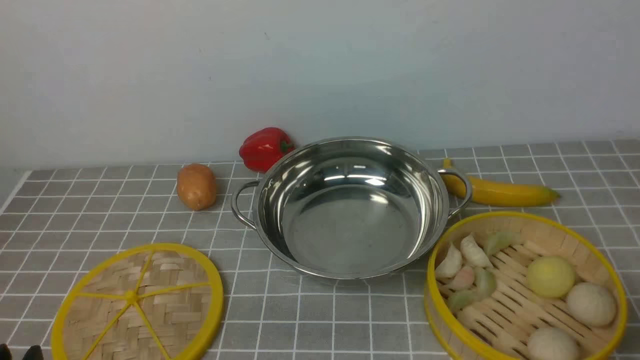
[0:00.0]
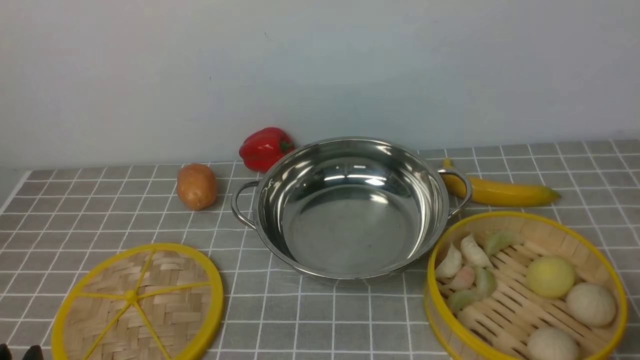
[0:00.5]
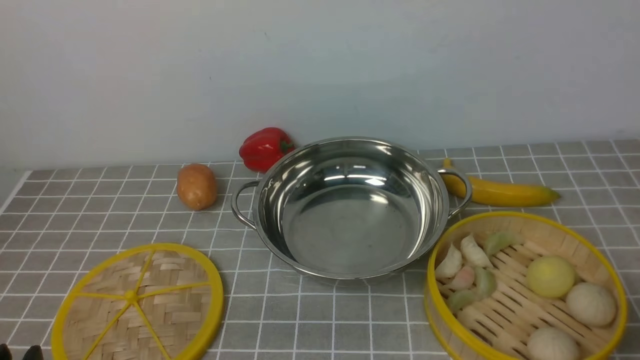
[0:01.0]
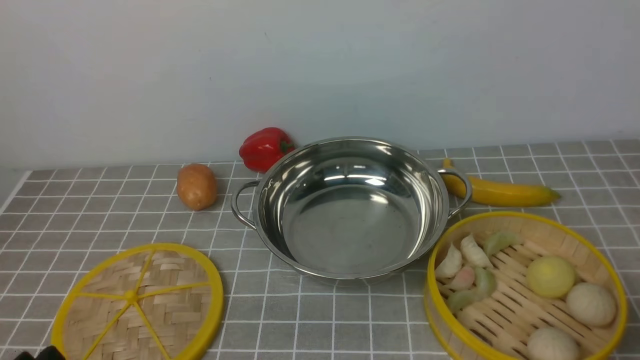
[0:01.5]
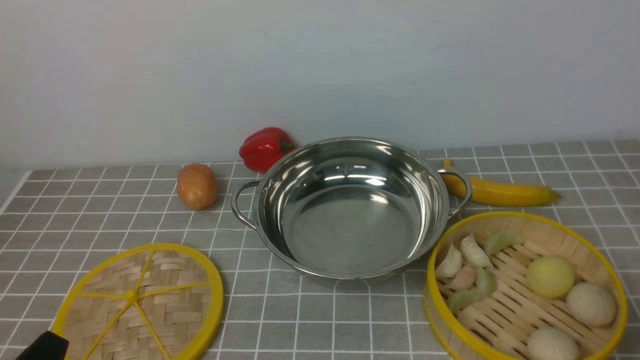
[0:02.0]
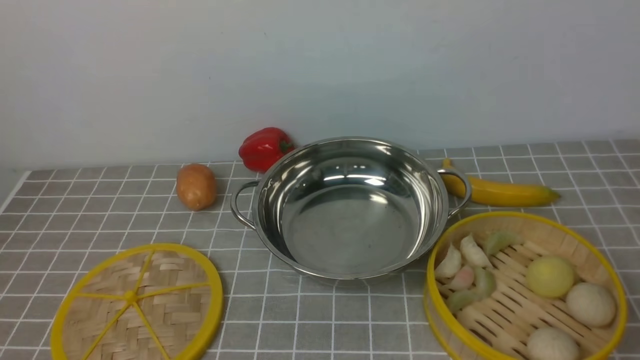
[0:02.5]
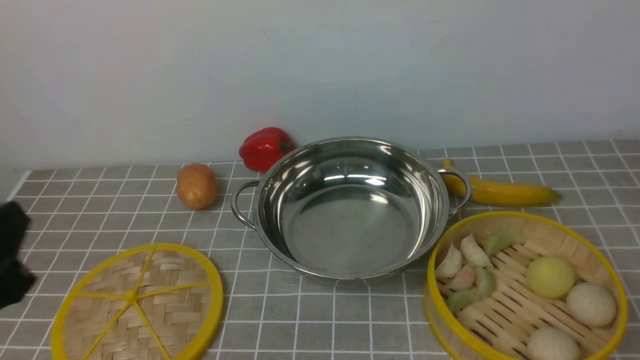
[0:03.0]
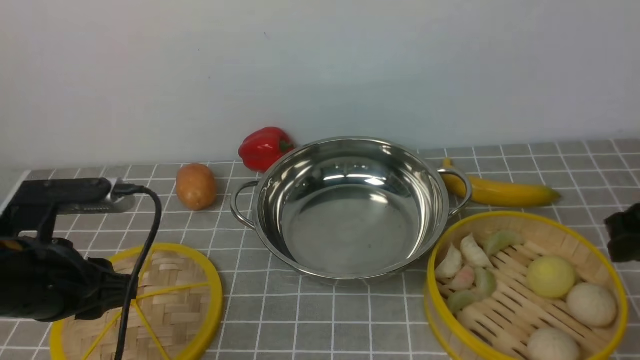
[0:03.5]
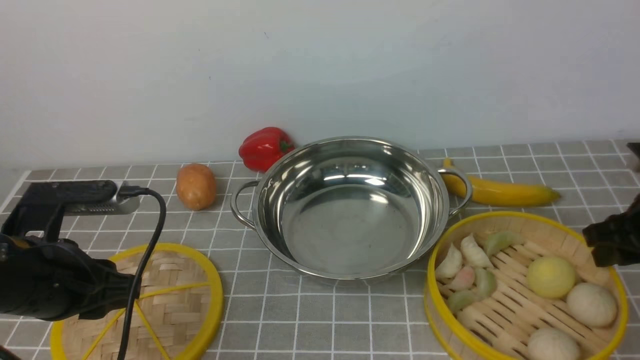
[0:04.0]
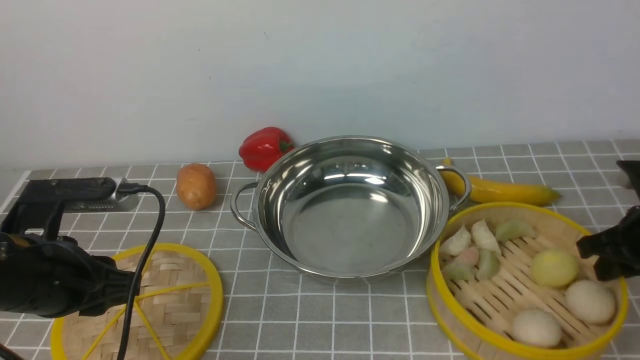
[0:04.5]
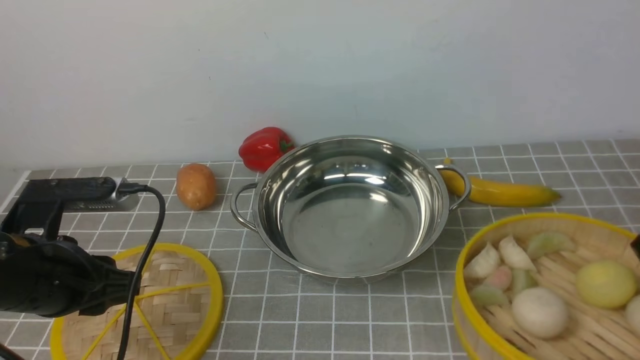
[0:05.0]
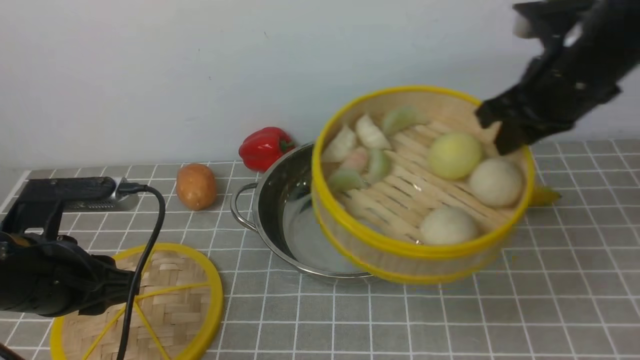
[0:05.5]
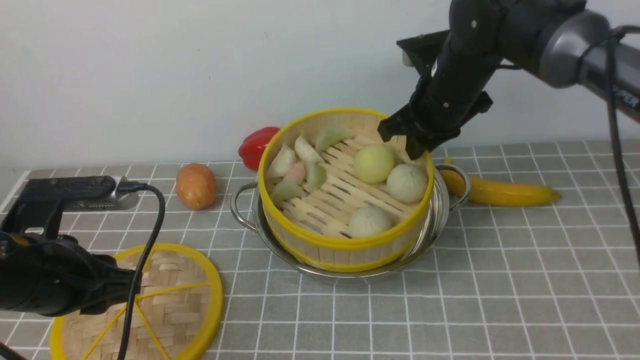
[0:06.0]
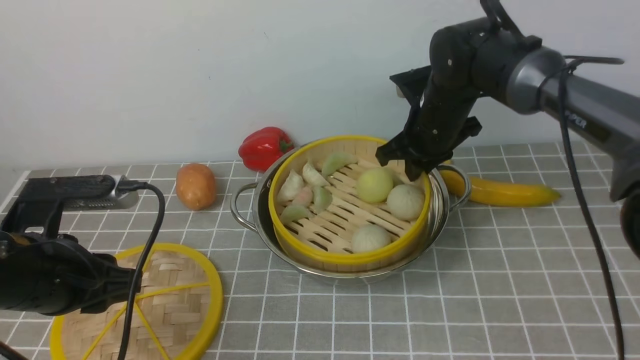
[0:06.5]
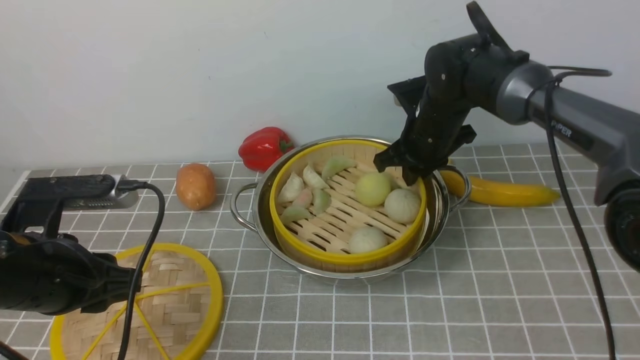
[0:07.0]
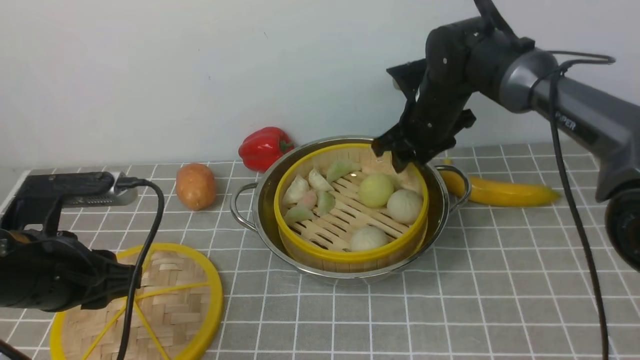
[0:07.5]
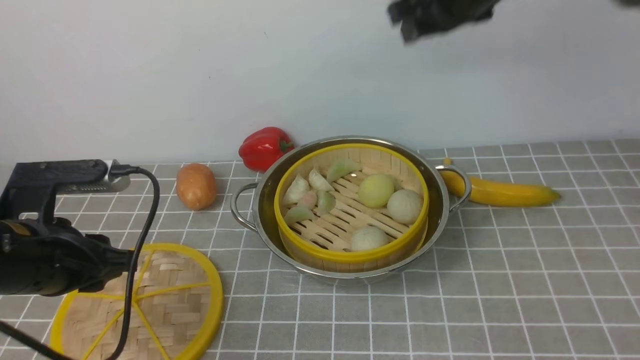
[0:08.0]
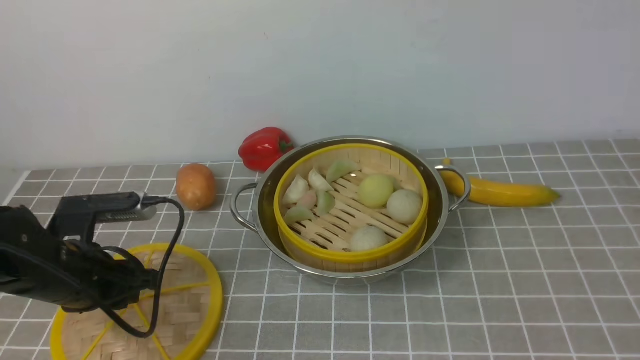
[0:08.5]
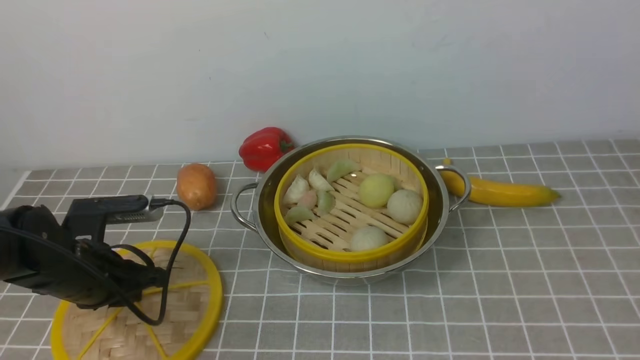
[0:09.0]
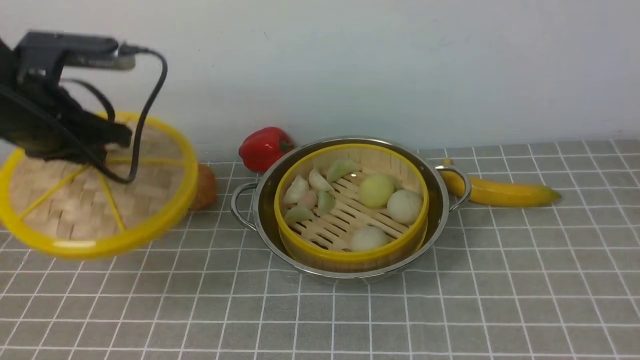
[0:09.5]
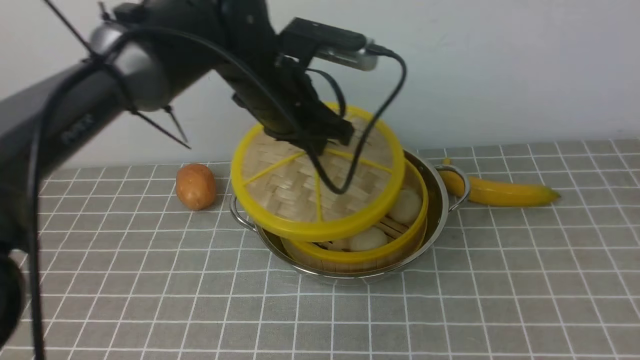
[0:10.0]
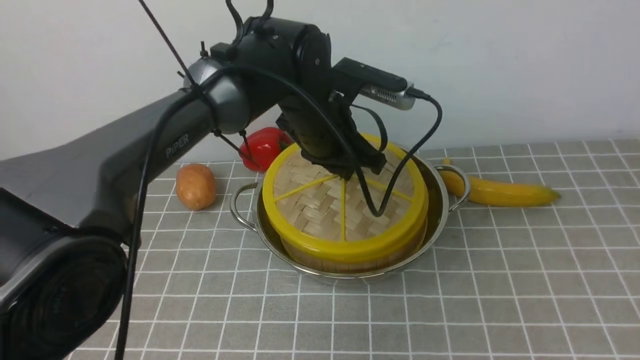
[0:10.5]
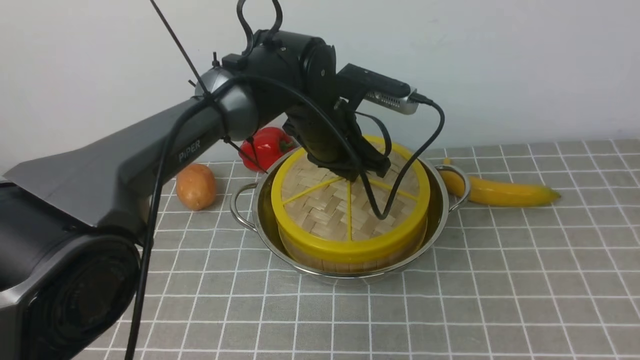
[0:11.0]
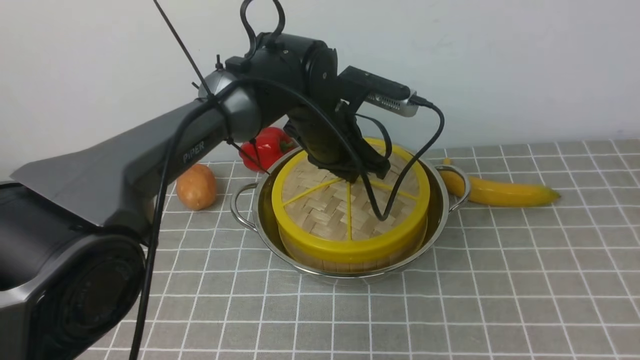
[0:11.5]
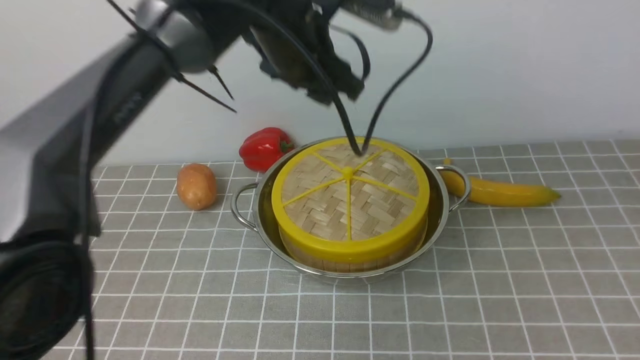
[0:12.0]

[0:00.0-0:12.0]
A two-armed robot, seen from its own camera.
Task of the whole recording: place the steamer in the pot on the grey tablecloth, and put the lid on the steamer.
Step, 0:00.0 to 0:04.5: use the right arm to lift the steamer closest to it.
Step, 0:05.0 to 0:07.5: use the right arm to put the steamer into the iron steamer pot in the middle.
Step, 0:08.0 to 0:09.0: use the left arm to lift the lid of the steamer.
Step, 0:09.5 to 0:11.5: use the left arm to place the steamer lid on the steamer.
0:02.0 to 0:04.0: Both grippers move forward, approximately 20 cm.
0:04.0 to 0:06.0: The right gripper moves to the left and forward, some 25 cm, and closes up.
0:06.0 to 0:08.0: The right gripper travels upward by about 15 cm, and opens its fingers.
0:08.0 to 0:10.0: The left gripper travels to the right and forward by about 25 cm, and closes its fingers; the right gripper travels backward by approximately 40 cm.
0:10.0 to 0:12.0: The left gripper travels upward by approximately 5 cm, and opens.

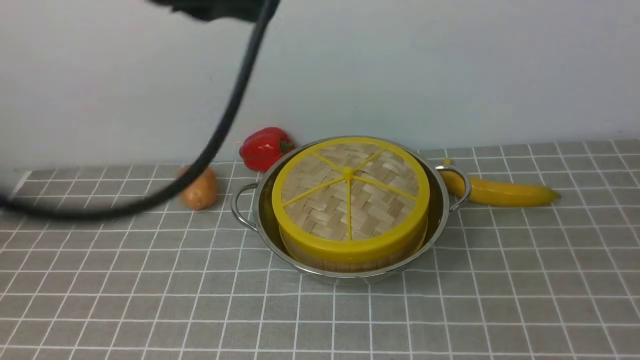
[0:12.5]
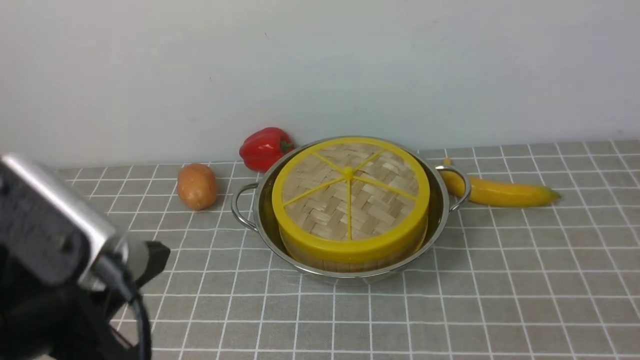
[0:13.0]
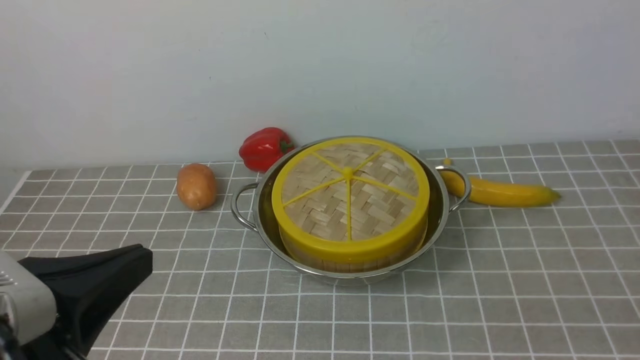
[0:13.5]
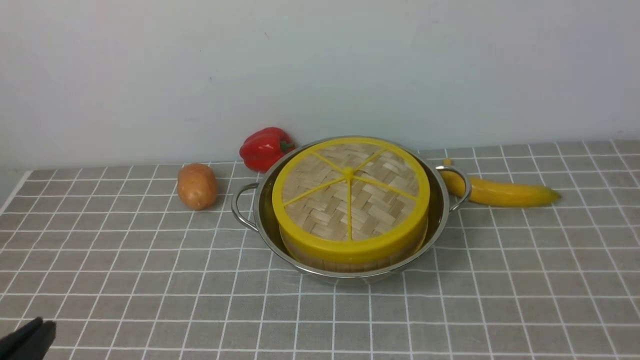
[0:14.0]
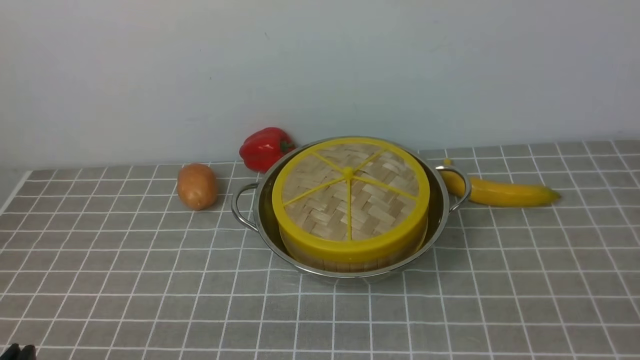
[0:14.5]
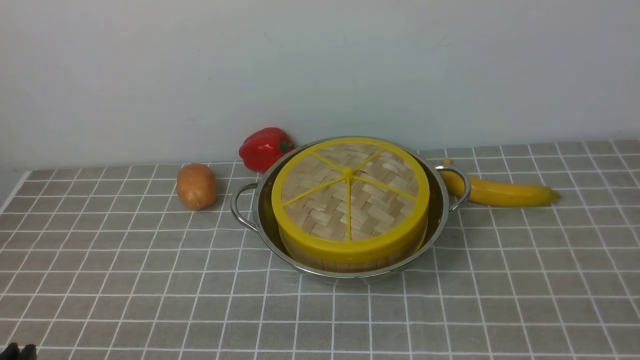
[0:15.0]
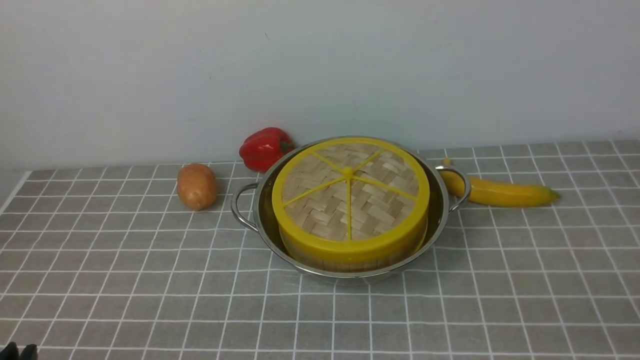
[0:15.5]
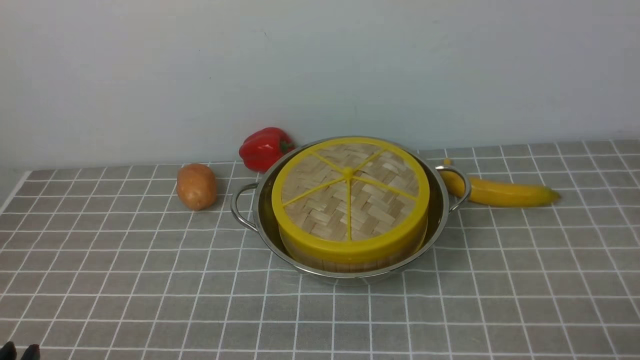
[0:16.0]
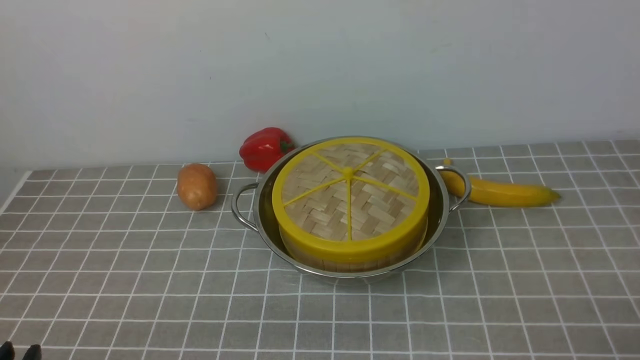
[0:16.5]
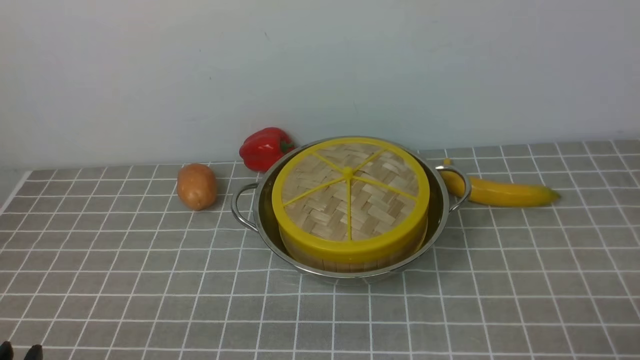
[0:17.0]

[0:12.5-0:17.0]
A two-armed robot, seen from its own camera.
Task of the whole recording: place the steamer in the pot on the grey tablecloth, and put the lid on the steamer.
0:12.5 to 0:14.5: The right gripper travels downward by some 10 cm, and closes, then reopens. Meanwhile the left gripper is displaced downward, backward and to the left by about 35 cm.

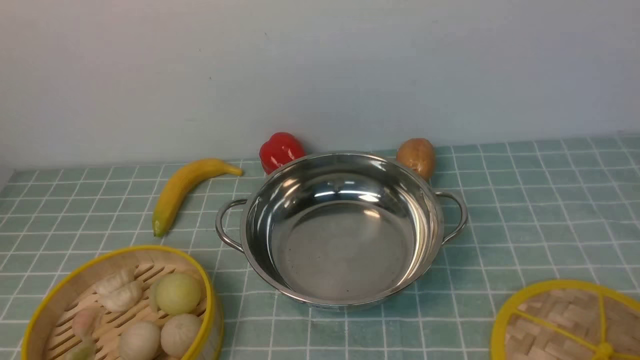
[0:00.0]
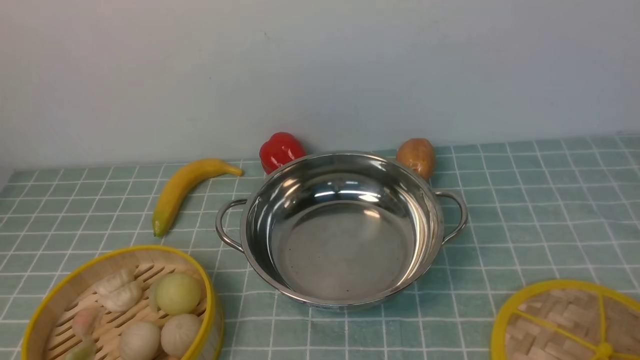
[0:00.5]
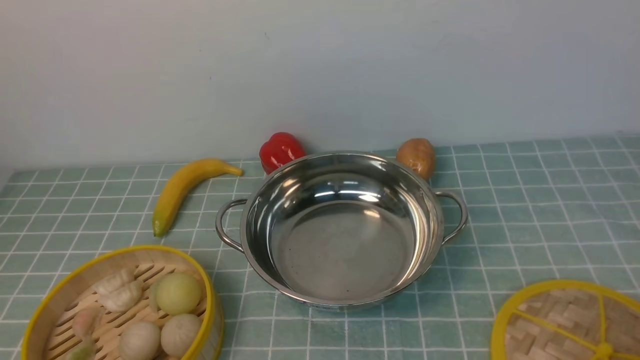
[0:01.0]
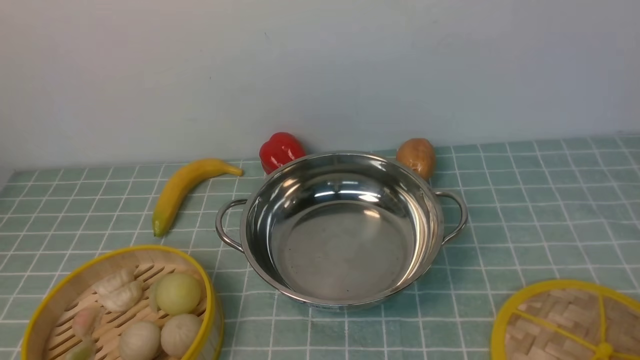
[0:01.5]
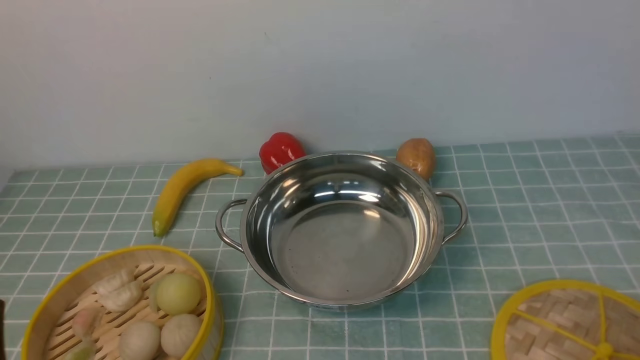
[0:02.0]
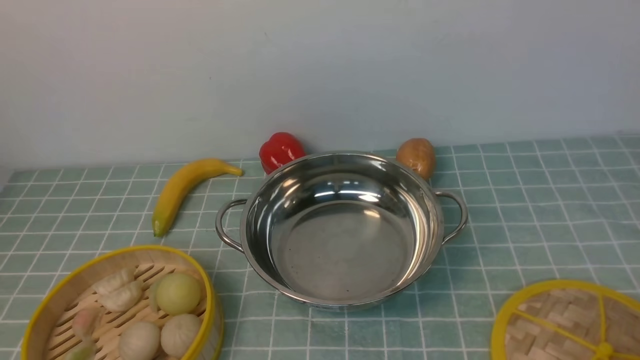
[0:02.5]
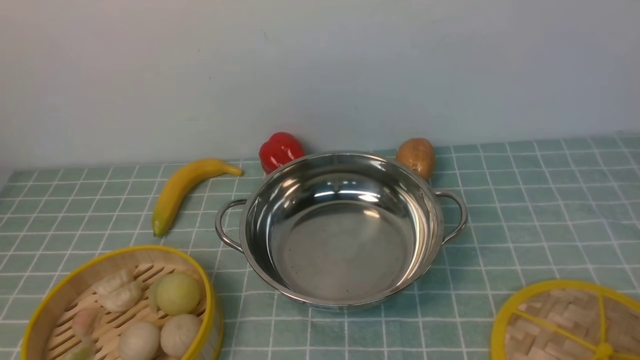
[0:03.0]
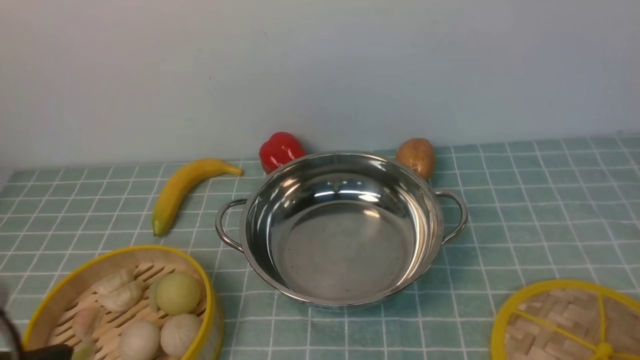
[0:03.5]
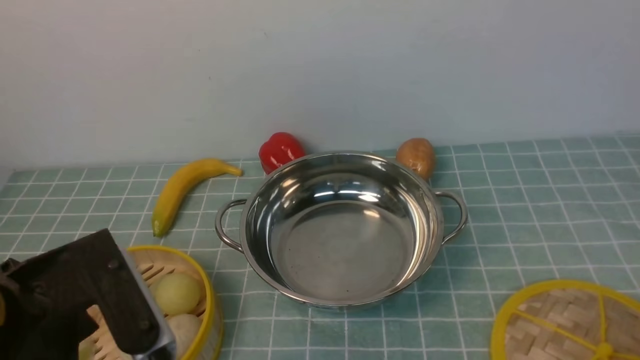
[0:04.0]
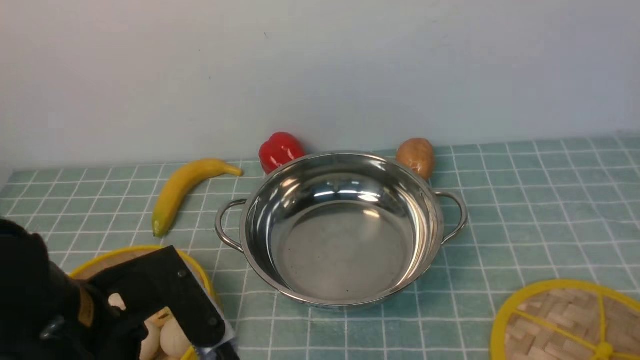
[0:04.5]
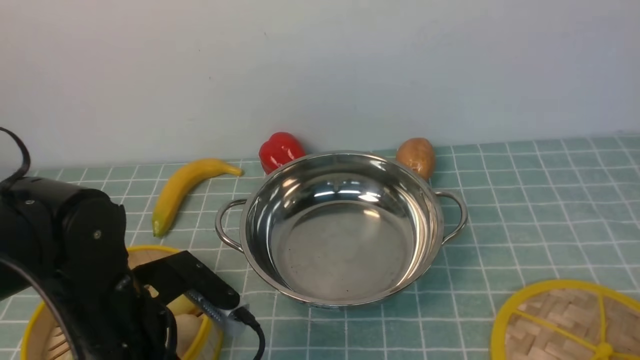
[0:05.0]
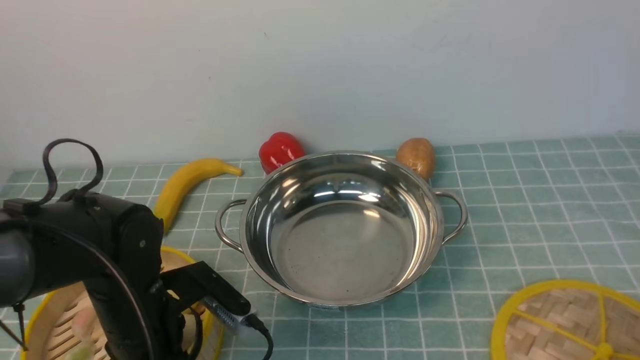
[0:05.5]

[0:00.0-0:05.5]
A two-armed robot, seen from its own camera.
Task of the whole recording: place the steamer in the pot on the blue tablecloth, and put the lid on the steamer.
0:02.0 to 0:03.5: The left gripper shifts approximately 10 cm upward.
0:03.5 to 0:05.5: The left gripper goes approximately 25 cm downward and forward.
